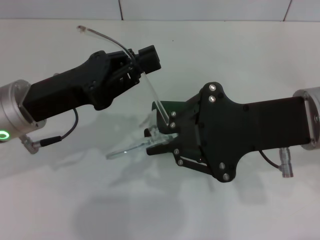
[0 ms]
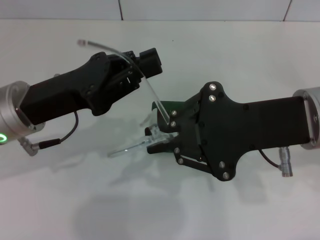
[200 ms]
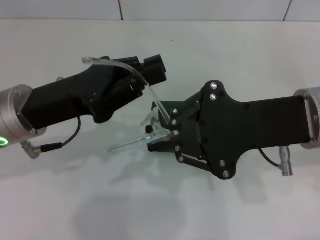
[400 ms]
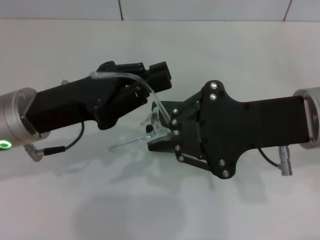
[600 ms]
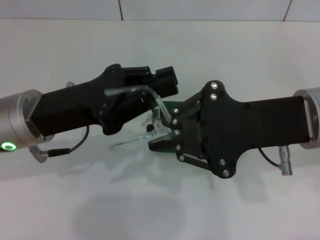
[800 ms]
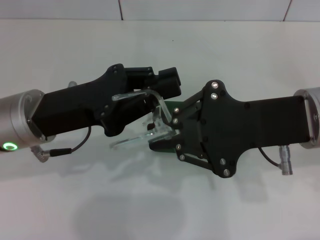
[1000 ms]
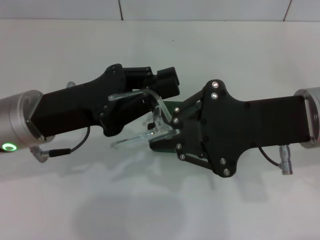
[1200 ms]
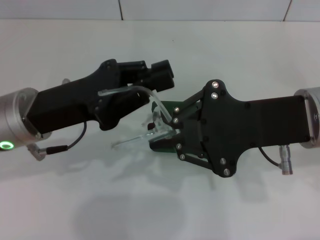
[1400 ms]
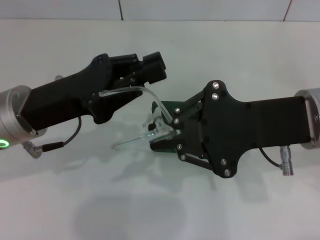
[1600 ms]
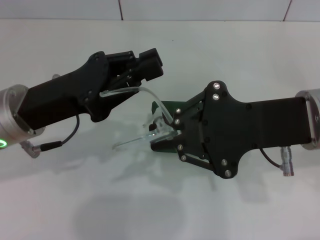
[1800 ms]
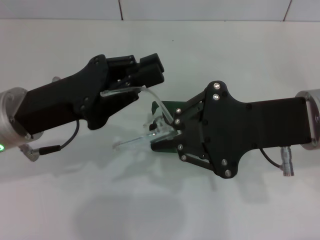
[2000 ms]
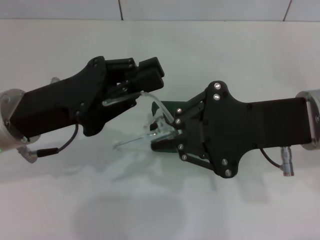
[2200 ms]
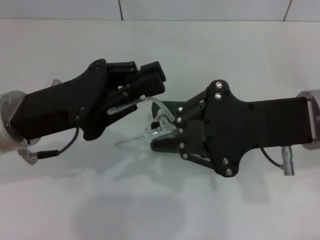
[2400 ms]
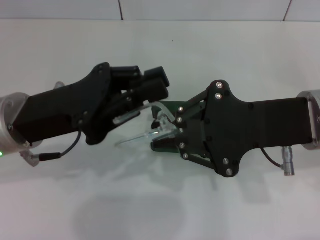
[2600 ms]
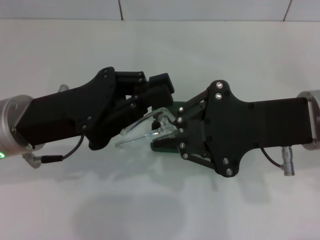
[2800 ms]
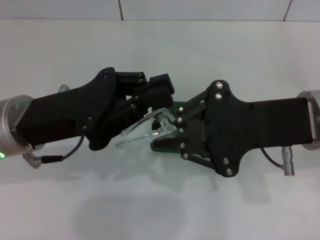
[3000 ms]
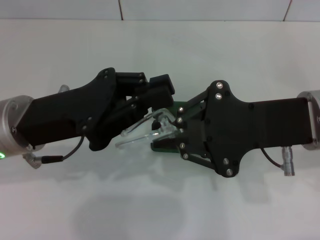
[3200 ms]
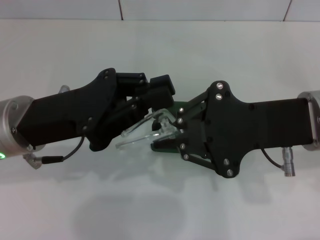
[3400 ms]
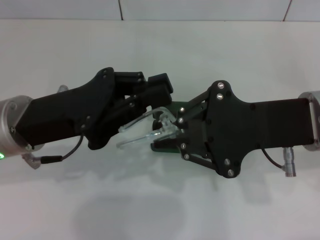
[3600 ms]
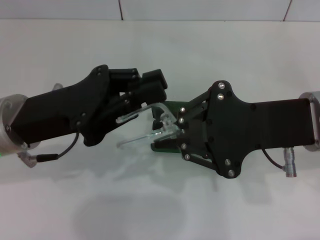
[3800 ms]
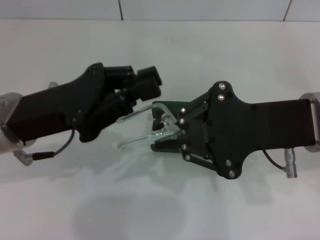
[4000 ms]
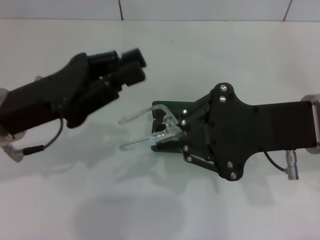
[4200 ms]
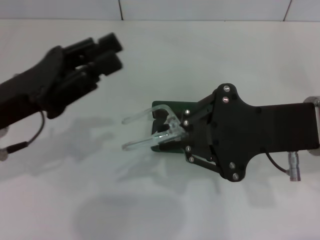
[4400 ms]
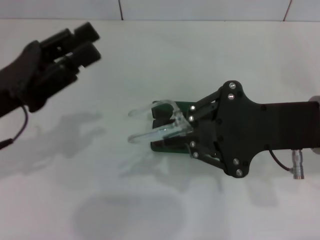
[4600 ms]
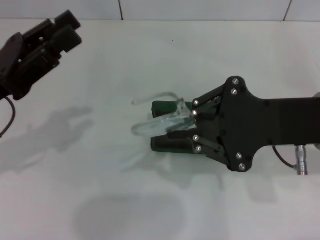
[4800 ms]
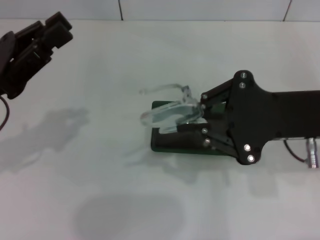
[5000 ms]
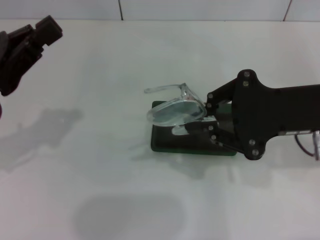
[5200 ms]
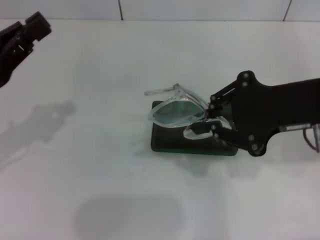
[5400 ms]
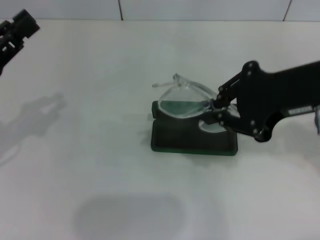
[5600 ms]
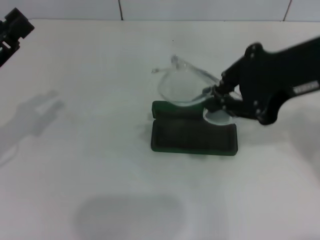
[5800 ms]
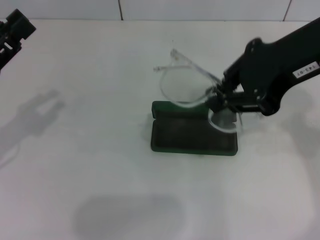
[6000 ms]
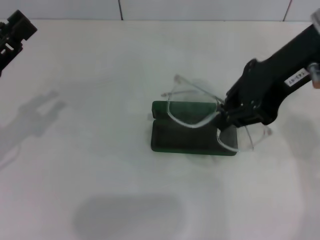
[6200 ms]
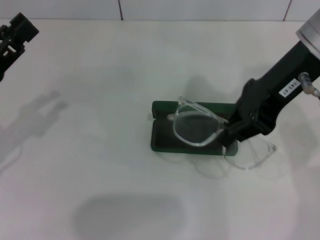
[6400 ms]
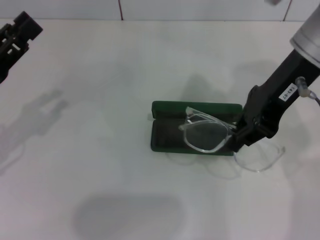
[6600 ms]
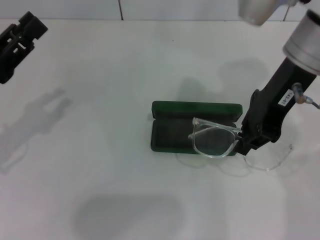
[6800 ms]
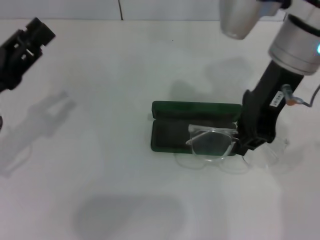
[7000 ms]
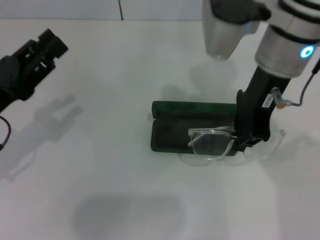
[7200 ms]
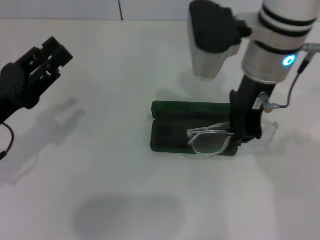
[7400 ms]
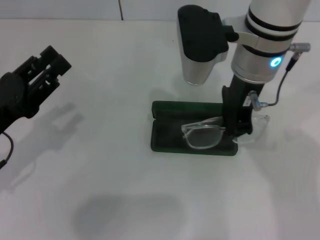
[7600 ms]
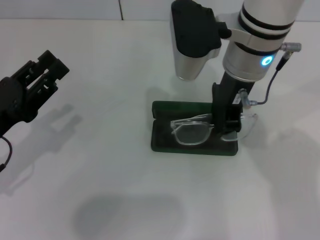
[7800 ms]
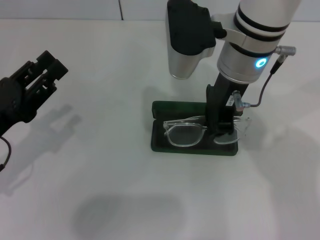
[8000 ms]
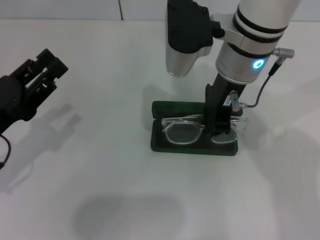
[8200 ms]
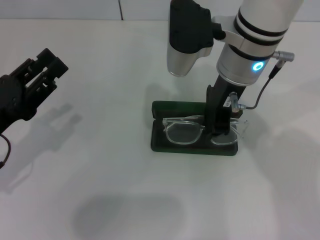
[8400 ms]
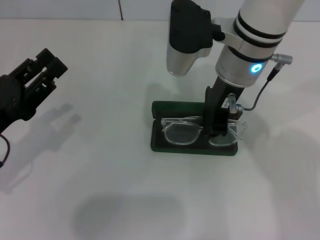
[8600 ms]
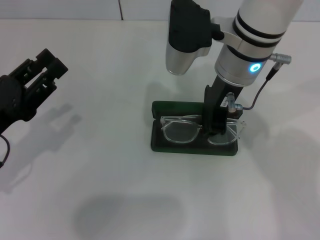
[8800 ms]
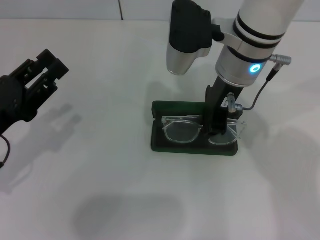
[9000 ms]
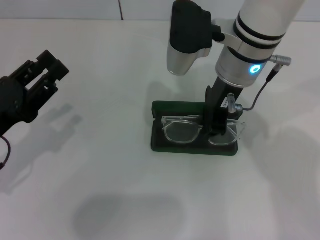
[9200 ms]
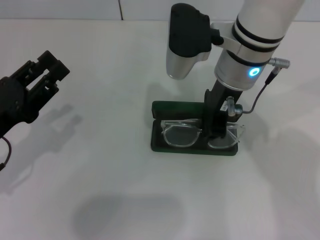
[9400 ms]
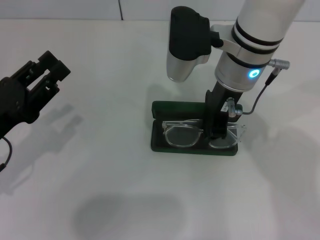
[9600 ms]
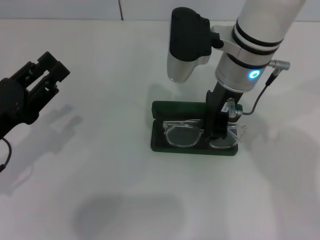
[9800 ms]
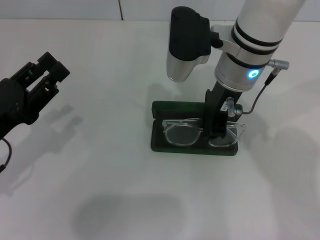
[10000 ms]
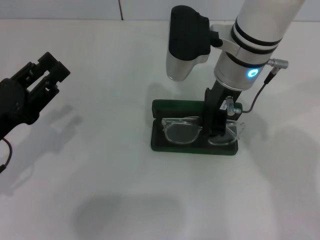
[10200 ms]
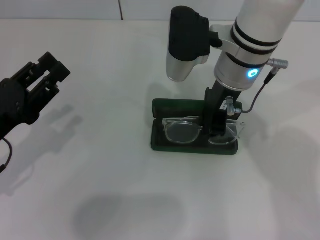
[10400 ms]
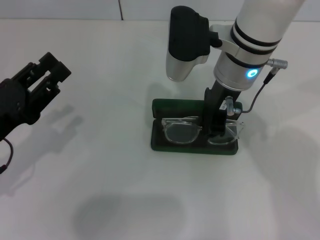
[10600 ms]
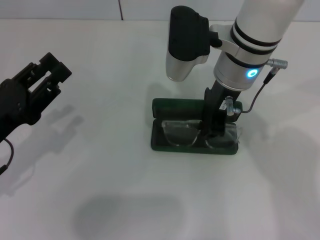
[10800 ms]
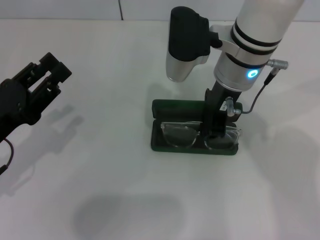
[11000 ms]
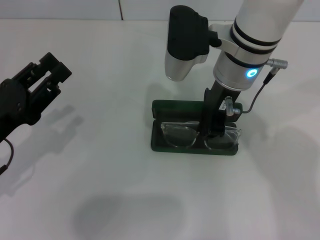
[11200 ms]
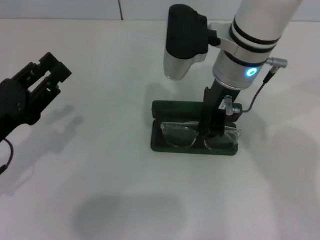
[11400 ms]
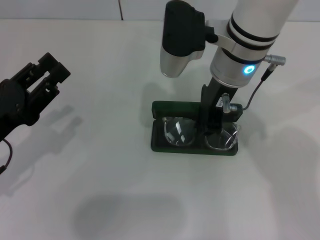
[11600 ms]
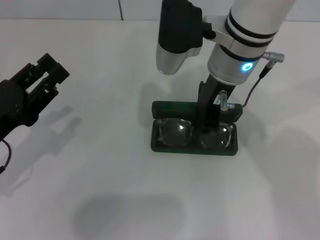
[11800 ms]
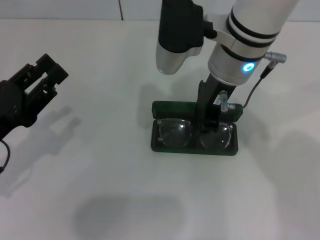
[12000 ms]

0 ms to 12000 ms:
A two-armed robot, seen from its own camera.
Step, 0 ms to 3800 ms: Fold the frame with your left hand.
0 ms to 3000 ms: The grippers stay close to where they were, moving slightly.
4400 ms to 6000 ms: The left gripper travels to the left by approximately 5 cm, and opens up. Meanwhile the right gripper moves upward, approximately 10 cm.
6000 ms to 7600 ms: The right gripper is displaced to the left, downward and forward by approximately 15 cm.
7600 ms to 9000 ms: The grippers make only small movements.
9000 ms to 10400 ms: The two grippers keep their place.
10400 ms to 12000 ms: The grippers stay close to where they were, moving slightly.

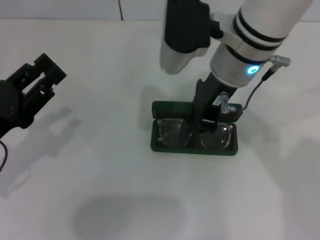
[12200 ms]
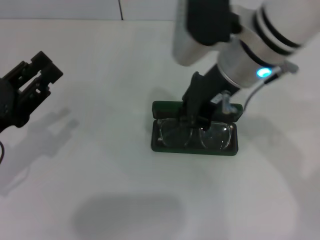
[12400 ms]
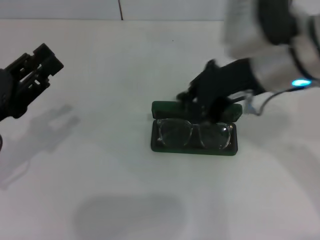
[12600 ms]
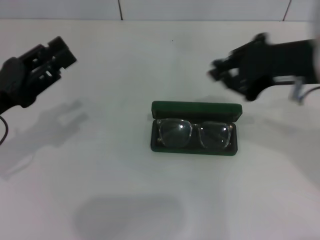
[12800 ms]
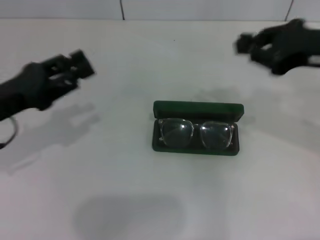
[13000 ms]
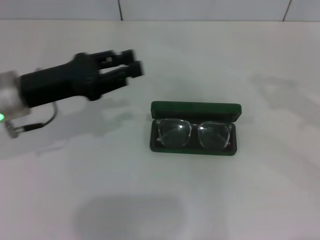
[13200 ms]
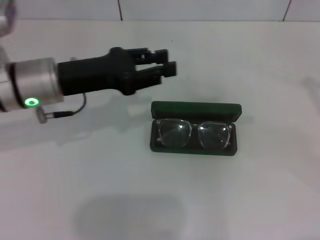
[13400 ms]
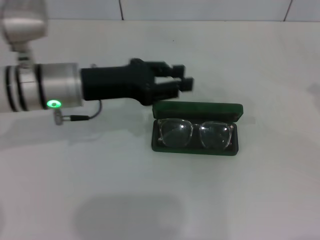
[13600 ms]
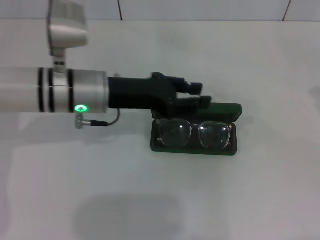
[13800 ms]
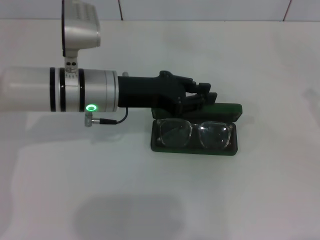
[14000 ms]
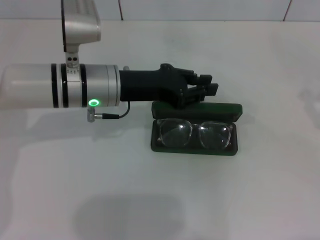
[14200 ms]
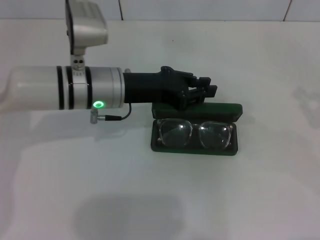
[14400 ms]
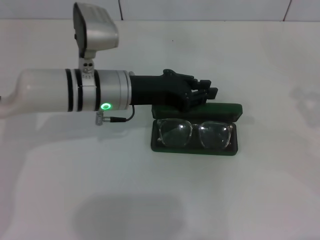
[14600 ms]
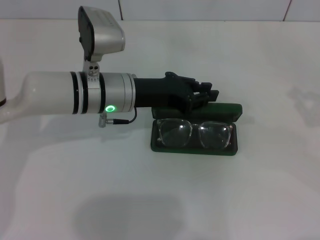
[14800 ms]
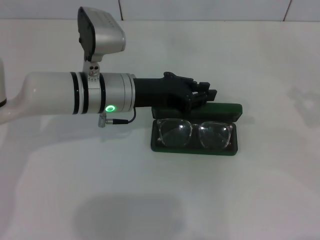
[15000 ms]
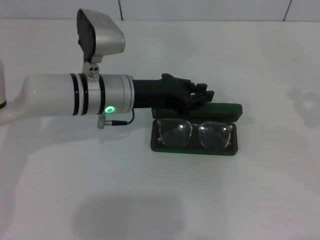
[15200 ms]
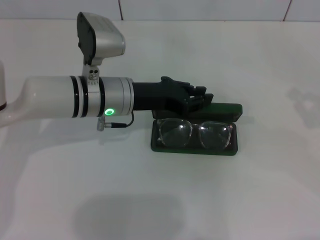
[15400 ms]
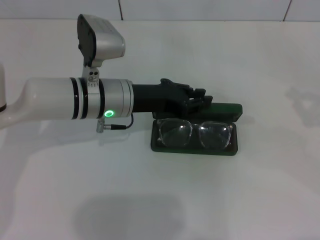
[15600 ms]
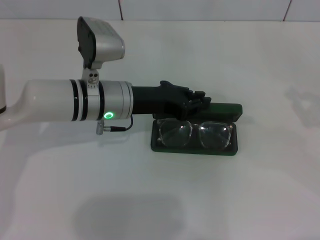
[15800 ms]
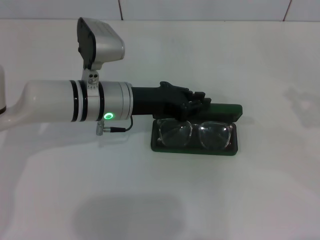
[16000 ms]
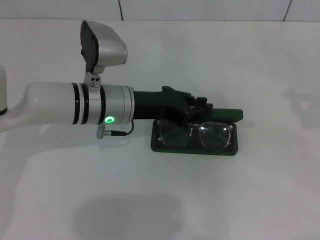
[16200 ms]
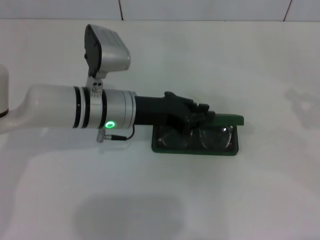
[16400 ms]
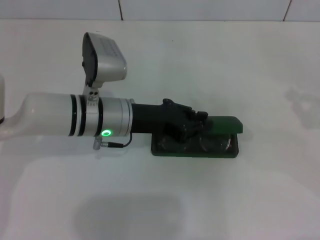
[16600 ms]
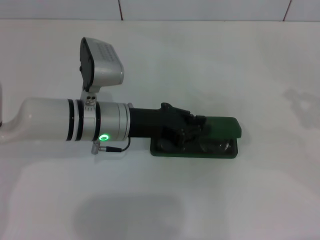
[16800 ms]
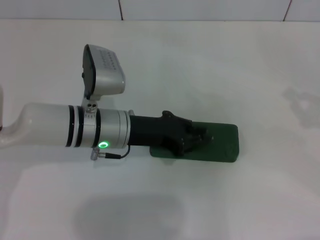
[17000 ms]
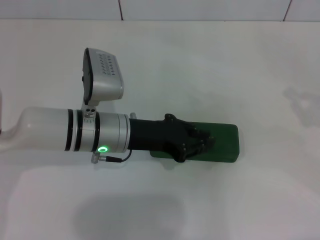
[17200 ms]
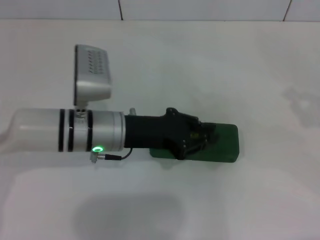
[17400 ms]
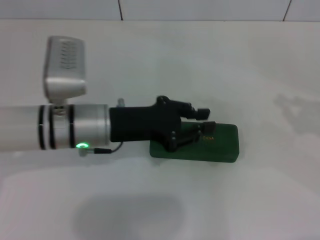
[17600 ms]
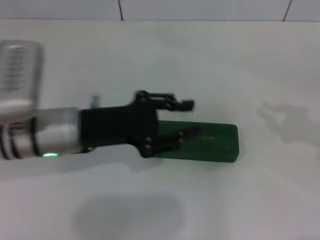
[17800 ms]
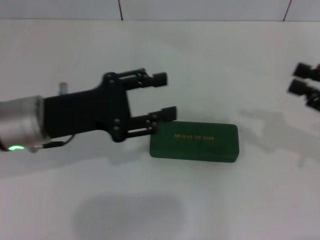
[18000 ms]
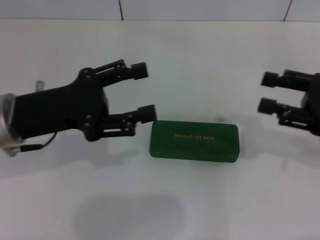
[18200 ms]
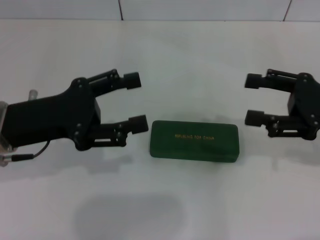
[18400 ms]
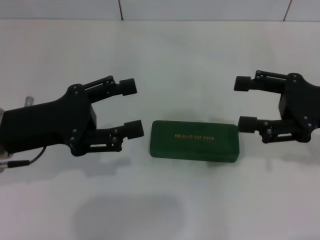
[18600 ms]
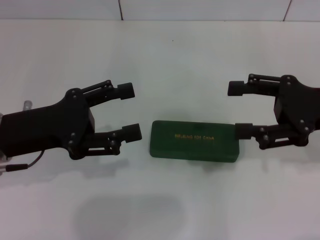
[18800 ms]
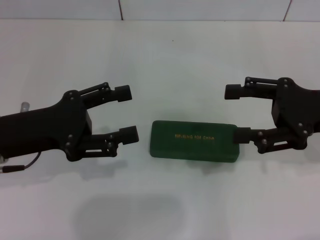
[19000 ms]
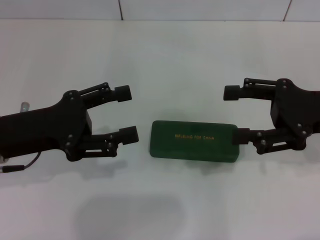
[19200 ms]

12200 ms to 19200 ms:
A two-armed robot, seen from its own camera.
Step, 12600 ms to 17400 ms: Close the glasses case with your left hand.
12200 ms to 13600 ms: The left gripper goes some 15 cm forward and to the right, while the right gripper is displaced to the right by roughly 35 cm.
13600 ms to 15000 ms: The left gripper goes some 5 cm to the right.
15000 ms to 16400 ms: There are only small adjustments of the grippers.
16400 ms to 17800 ms: The left gripper goes about 10 cm to the left and backward.
17800 ms to 19200 ms: Both grippers travel together to the left, roughly 10 cm. The left gripper opens up. Meanwhile the right gripper opens its fingers.

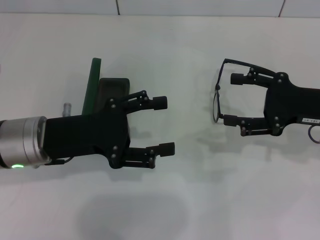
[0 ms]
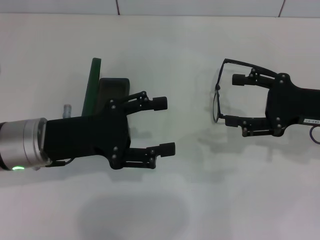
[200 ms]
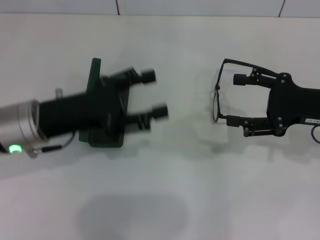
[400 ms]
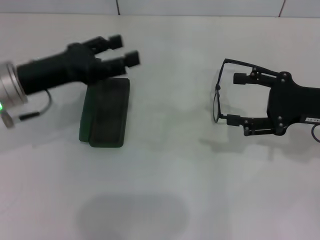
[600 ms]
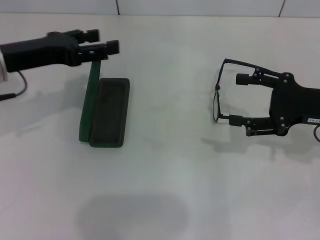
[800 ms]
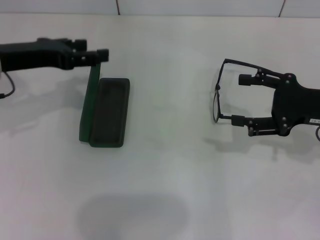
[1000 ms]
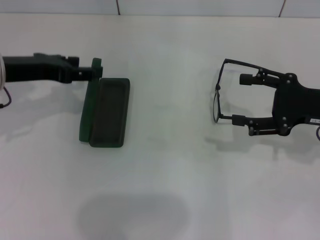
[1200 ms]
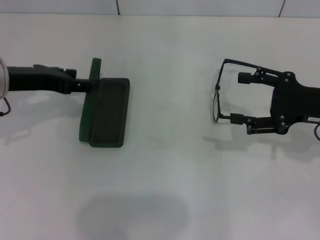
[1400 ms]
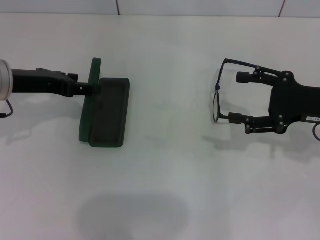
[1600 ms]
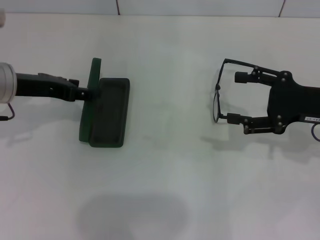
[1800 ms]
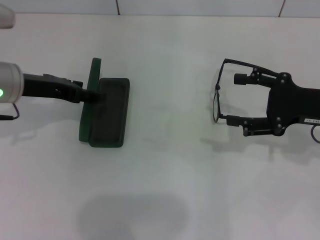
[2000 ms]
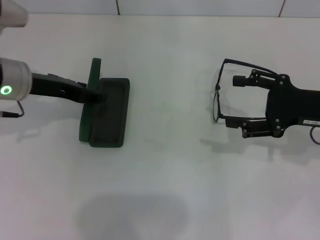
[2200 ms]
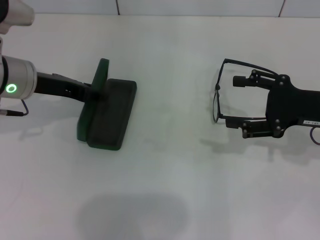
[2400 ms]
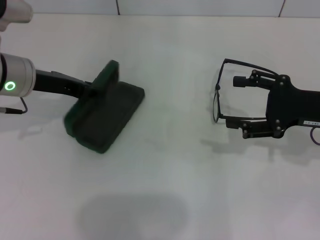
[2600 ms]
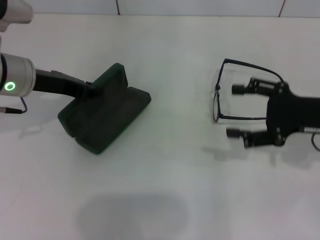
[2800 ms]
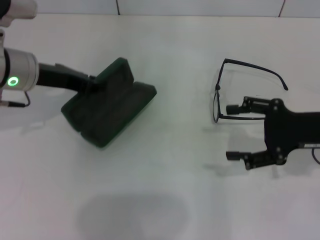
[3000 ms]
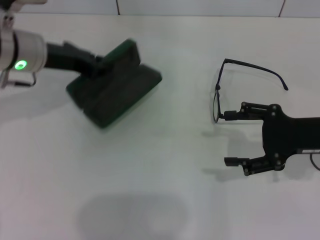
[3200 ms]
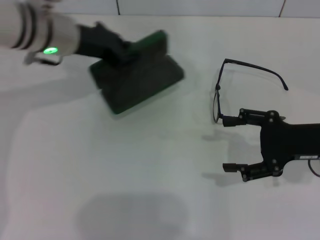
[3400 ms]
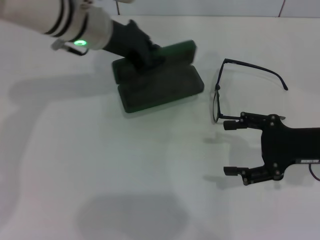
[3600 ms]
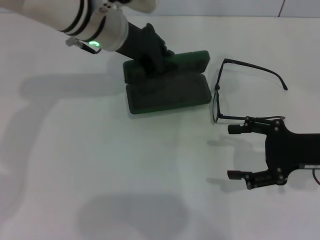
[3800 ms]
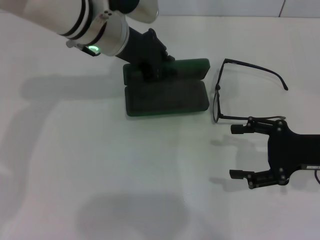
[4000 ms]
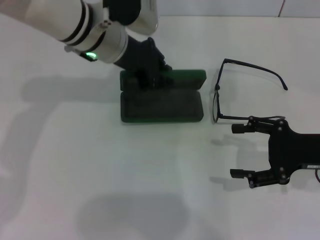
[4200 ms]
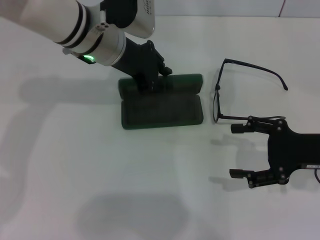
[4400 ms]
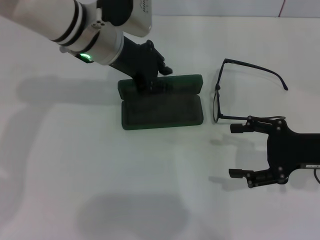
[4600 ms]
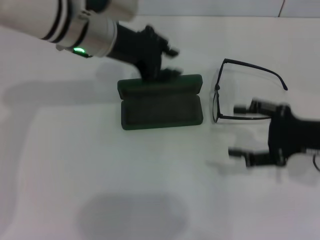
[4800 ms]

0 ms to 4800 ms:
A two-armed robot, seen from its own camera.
Step, 0 ms to 2400 ms: Grab the glasses case with your left hand.
Step, 2600 ms to 4600 ms: Place the glasses case in the center of the table with your left hand.
0 ms to 1600 ms: The left gripper travels forward and to the left by approximately 10 cm.
1600 ms to 3200 ms: The left gripper moves about 5 cm, and closes.
3200 ms to 4800 ms: The left gripper goes about 10 cm to the right.
